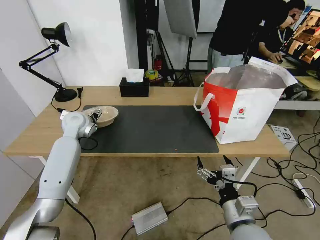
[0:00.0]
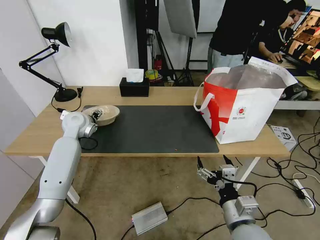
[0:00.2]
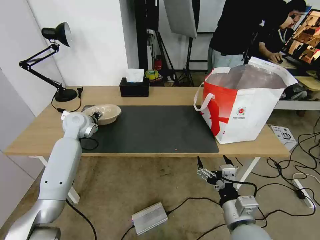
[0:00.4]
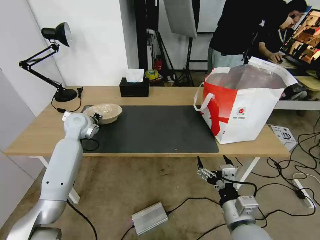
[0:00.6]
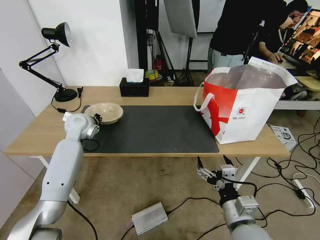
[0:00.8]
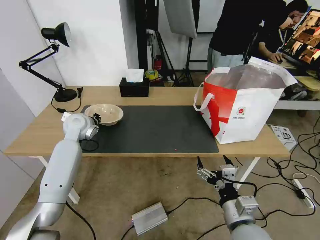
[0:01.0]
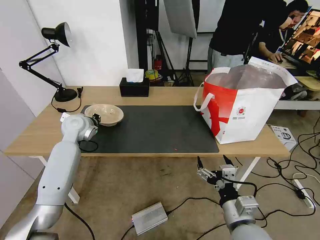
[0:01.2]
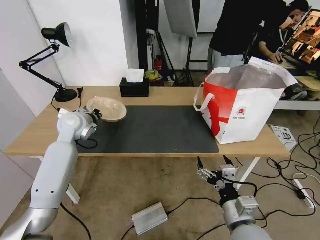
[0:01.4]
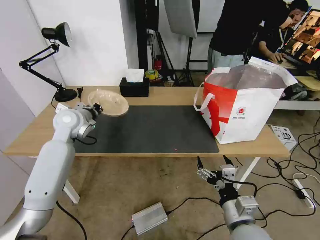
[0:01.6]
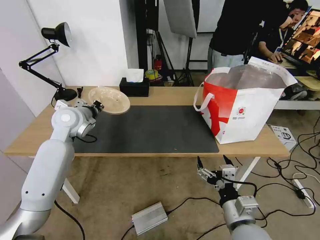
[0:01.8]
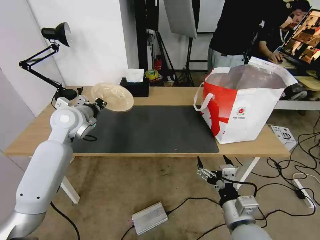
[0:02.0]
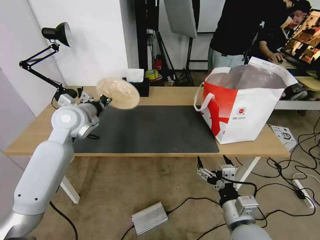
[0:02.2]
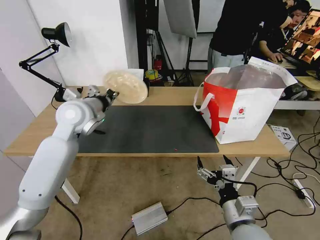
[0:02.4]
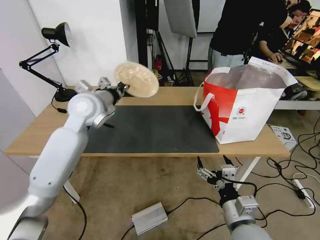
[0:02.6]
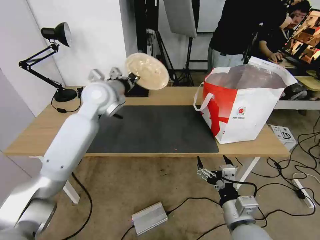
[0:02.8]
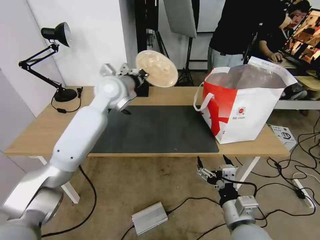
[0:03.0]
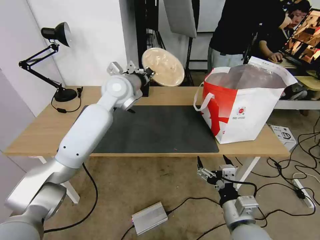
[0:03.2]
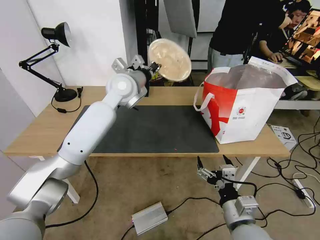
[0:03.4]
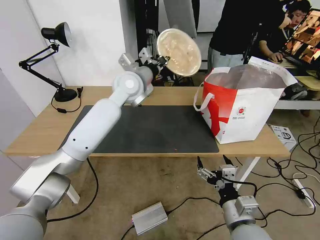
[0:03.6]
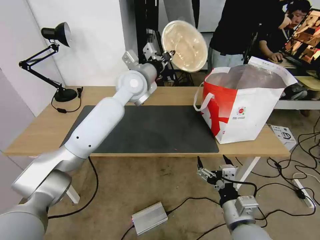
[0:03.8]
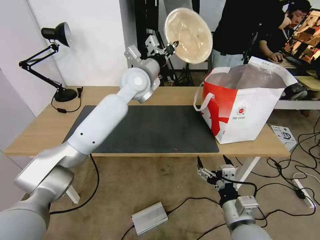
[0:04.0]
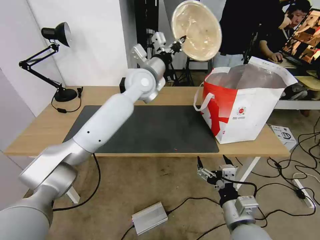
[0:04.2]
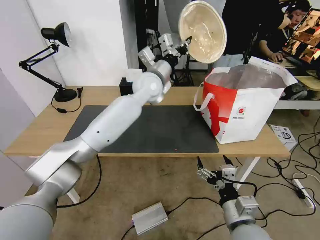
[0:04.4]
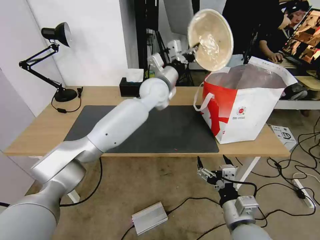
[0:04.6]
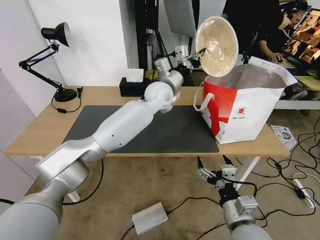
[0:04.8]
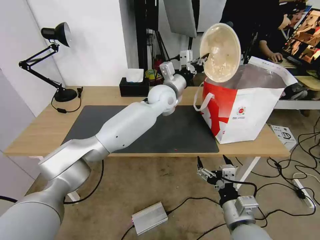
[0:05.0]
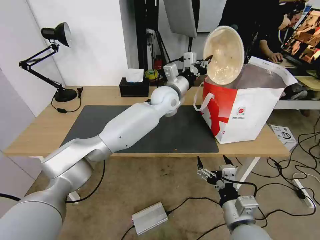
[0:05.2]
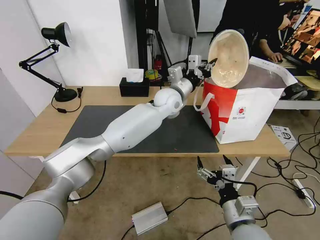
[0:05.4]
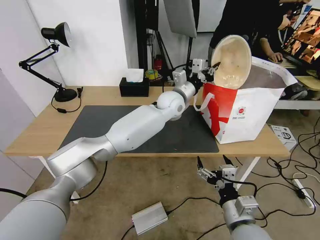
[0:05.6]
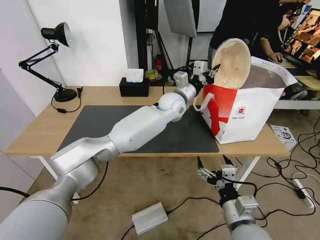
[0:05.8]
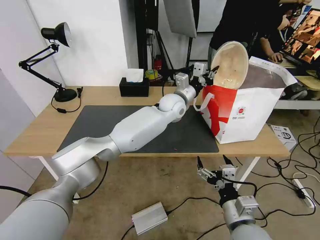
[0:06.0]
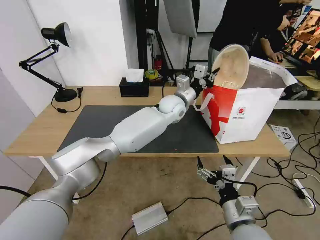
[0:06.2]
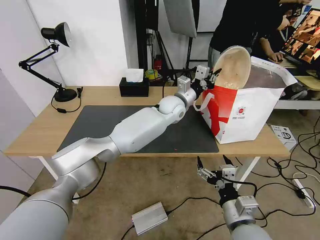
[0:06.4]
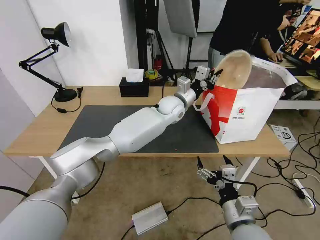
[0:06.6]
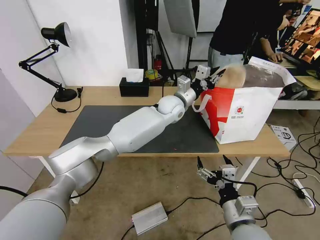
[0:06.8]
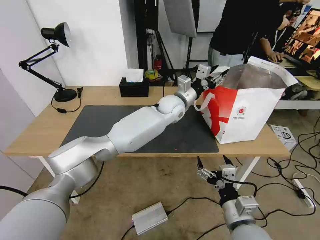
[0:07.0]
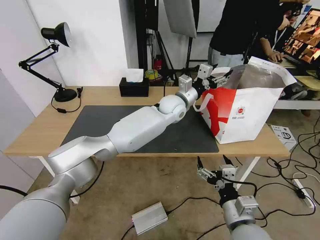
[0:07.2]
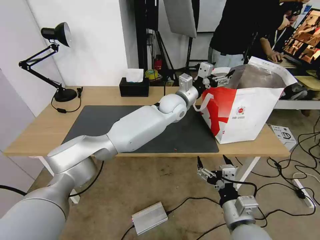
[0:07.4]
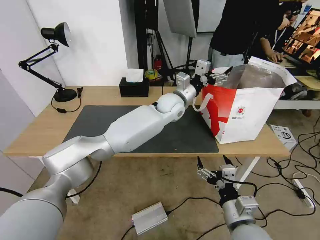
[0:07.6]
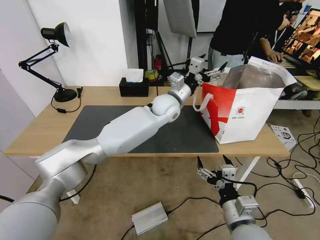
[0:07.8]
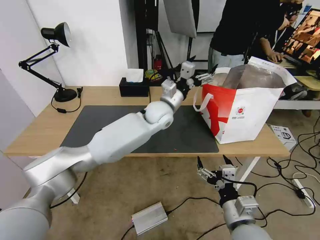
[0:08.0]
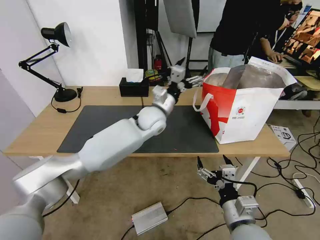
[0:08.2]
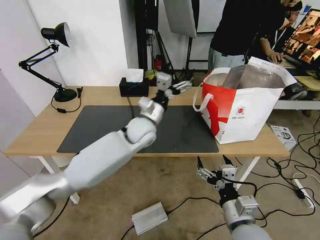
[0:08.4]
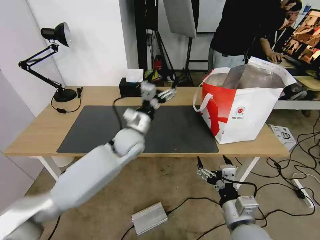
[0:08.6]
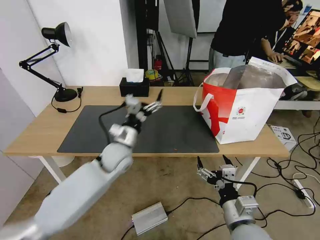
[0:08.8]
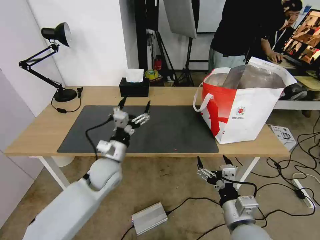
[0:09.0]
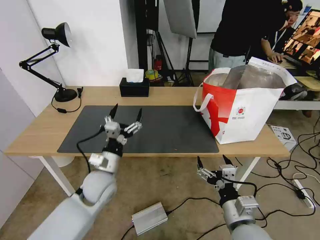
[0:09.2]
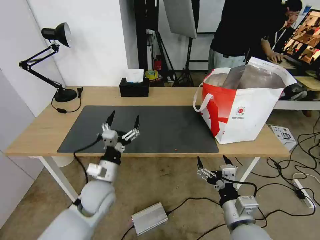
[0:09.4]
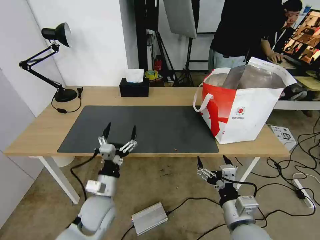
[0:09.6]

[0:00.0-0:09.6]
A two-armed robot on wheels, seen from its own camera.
Task of the whole recording: Pick up the trash from the table and place it into the takeout bag.
0:00.0 to 0:01.6: The left gripper moves some 5 cm, and closes.
0:01.6 to 0:03.2: The left gripper travels to the right and upward by roughly 20 cm.
0:03.2 to 0:04.8: The left gripper shifts about 15 cm to the right.
0:04.8 to 0:06.4: The left gripper travels downward by some 5 cm.
0:06.4 to 0:08.0: The left gripper moves to the left, approximately 5 cm, and opens its fingers.
0:08.0 to 0:09.6: The left gripper heads backward, to the left and downward, covering approximately 35 cm.

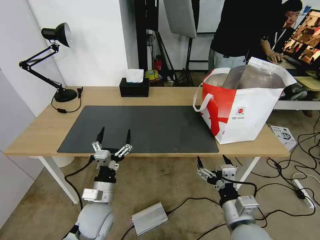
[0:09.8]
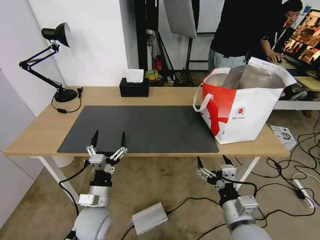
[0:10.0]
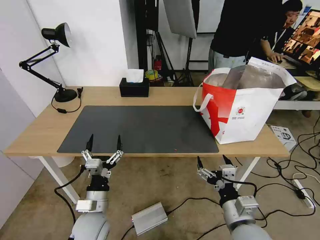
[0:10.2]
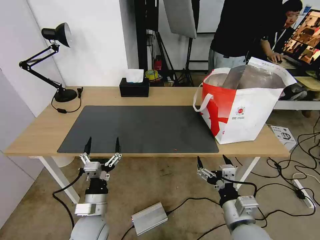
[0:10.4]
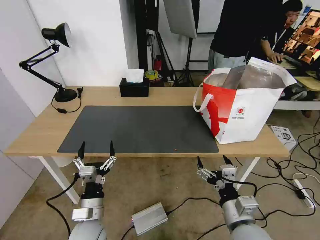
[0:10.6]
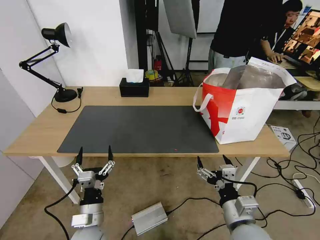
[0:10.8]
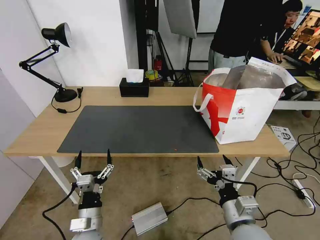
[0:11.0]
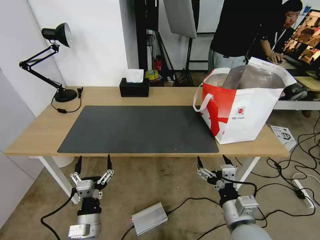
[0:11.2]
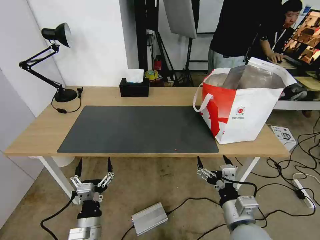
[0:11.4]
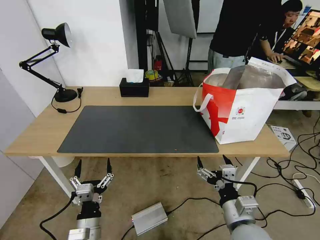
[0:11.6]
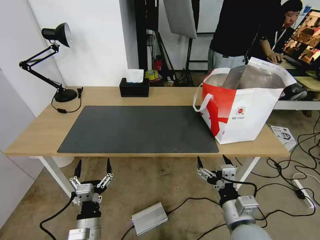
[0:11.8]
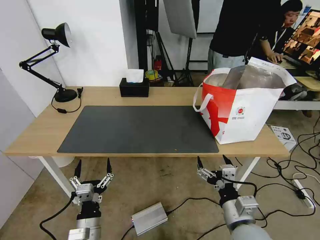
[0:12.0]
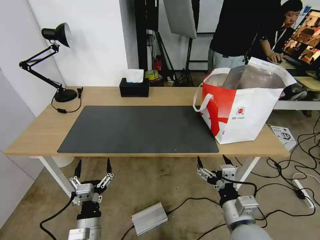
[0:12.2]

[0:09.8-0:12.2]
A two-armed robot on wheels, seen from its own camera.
Task of the whole recording: Pick up the trash from the table and place it into the takeout bag.
0:09.8 to 0:11.0: The left gripper heads backward, covering about 5 cm.
0:11.0 to 0:12.2: The grippers stay close to where they were, moving slightly.

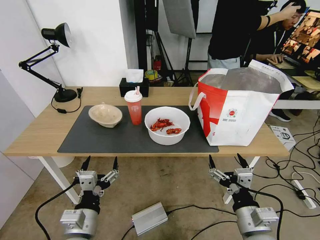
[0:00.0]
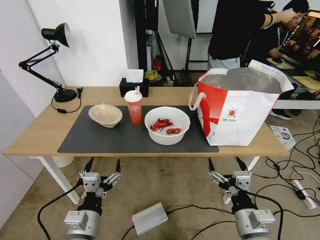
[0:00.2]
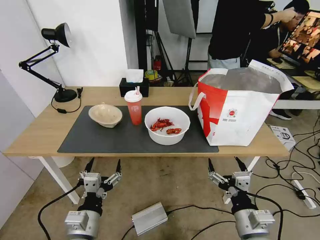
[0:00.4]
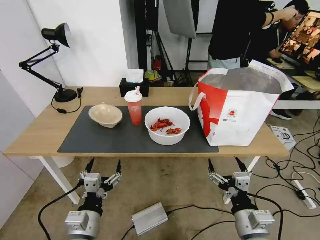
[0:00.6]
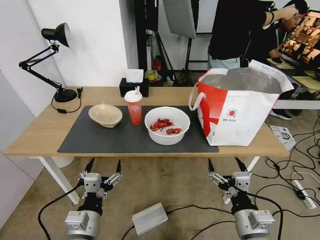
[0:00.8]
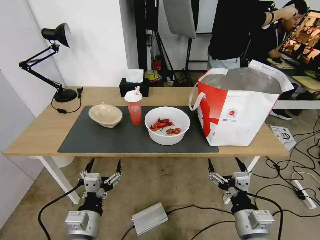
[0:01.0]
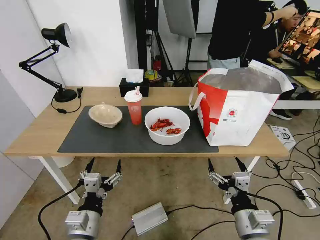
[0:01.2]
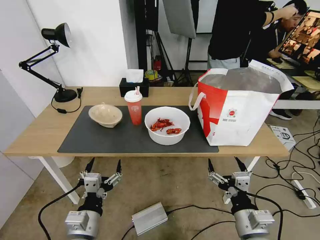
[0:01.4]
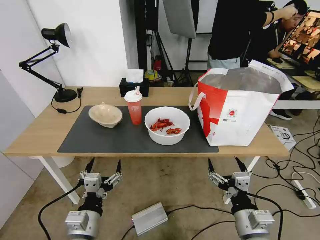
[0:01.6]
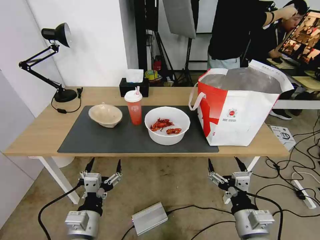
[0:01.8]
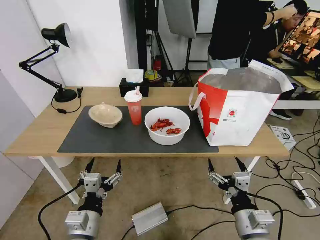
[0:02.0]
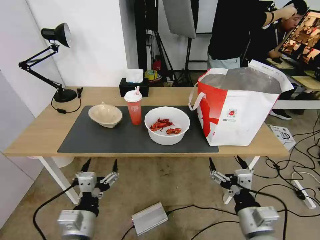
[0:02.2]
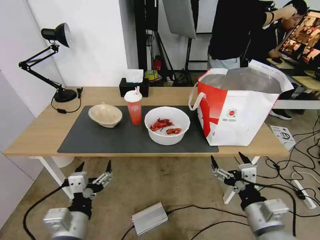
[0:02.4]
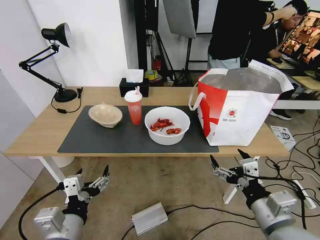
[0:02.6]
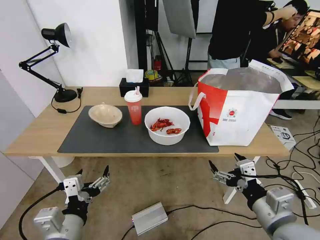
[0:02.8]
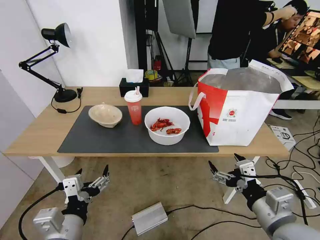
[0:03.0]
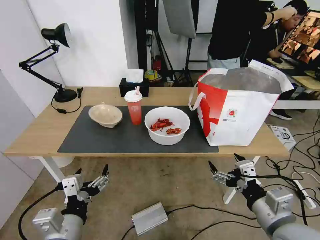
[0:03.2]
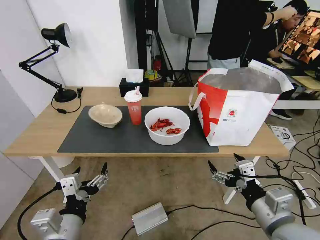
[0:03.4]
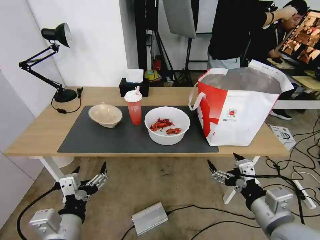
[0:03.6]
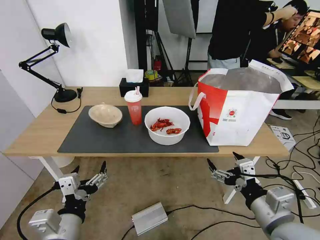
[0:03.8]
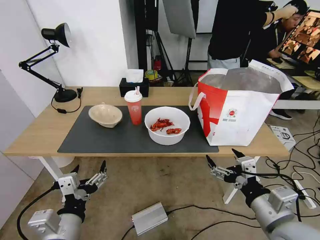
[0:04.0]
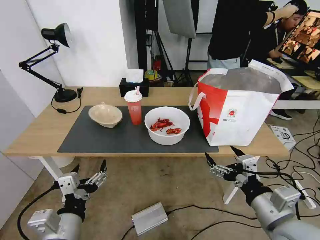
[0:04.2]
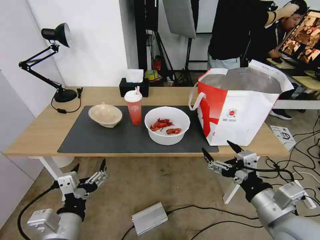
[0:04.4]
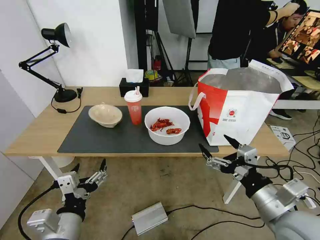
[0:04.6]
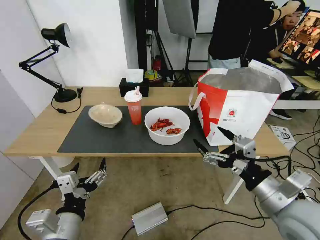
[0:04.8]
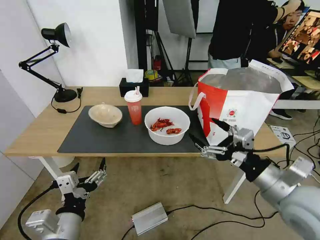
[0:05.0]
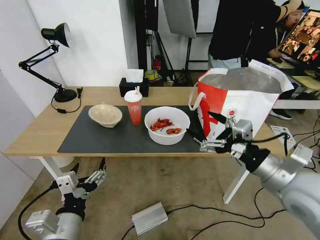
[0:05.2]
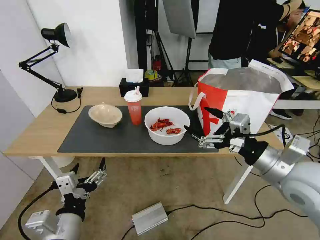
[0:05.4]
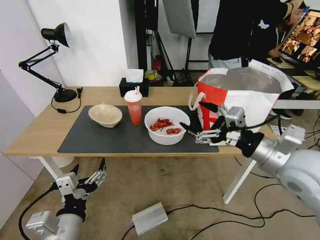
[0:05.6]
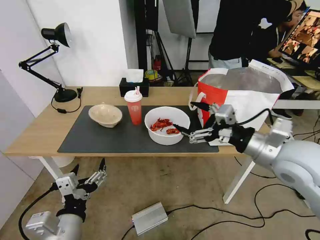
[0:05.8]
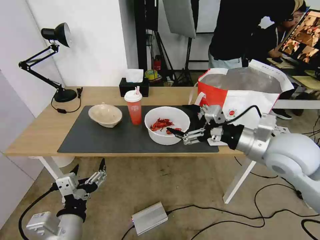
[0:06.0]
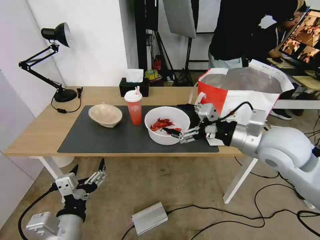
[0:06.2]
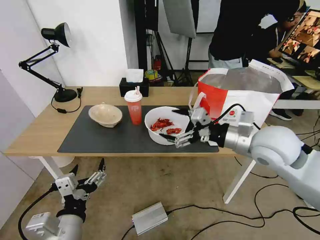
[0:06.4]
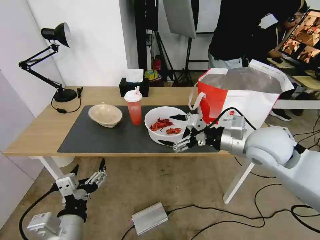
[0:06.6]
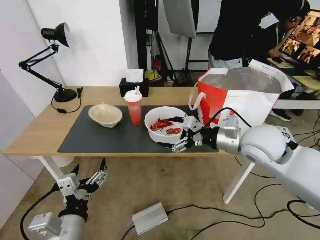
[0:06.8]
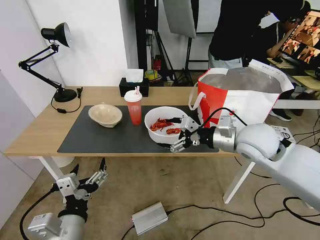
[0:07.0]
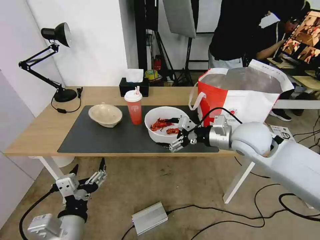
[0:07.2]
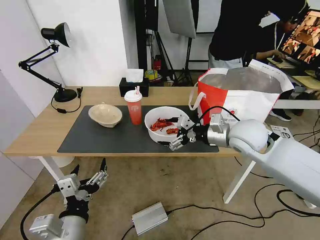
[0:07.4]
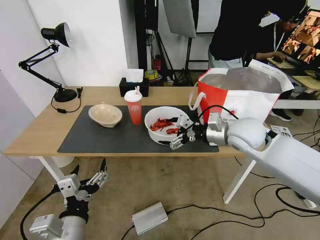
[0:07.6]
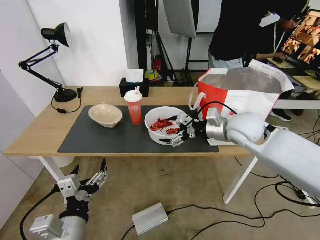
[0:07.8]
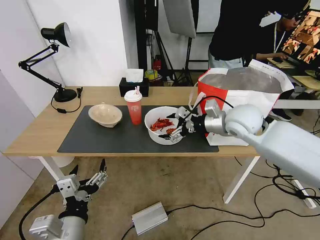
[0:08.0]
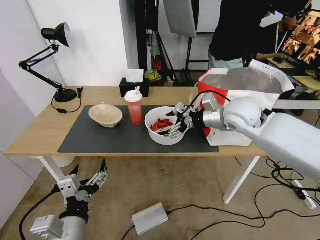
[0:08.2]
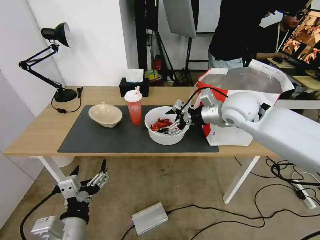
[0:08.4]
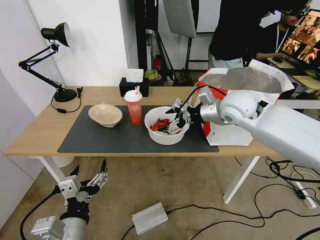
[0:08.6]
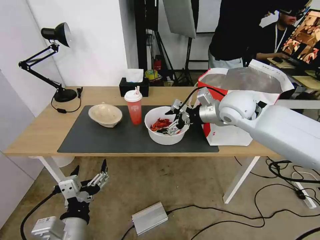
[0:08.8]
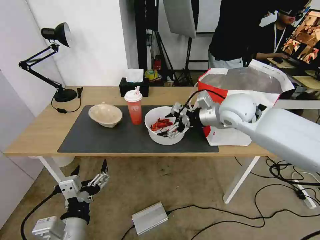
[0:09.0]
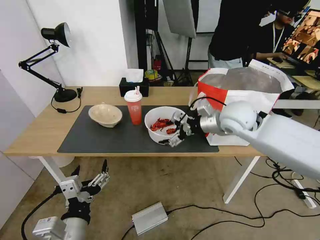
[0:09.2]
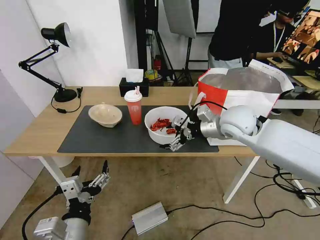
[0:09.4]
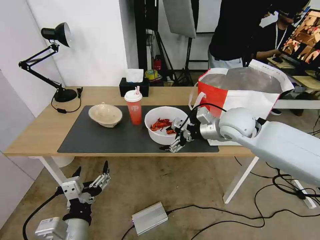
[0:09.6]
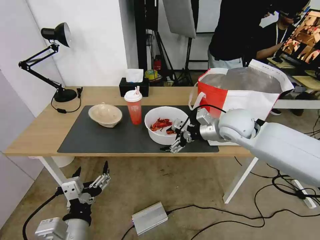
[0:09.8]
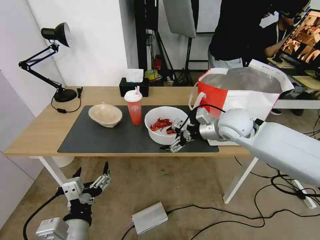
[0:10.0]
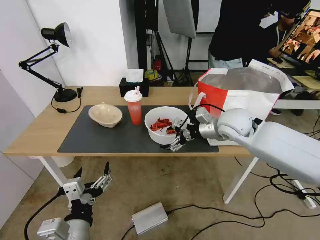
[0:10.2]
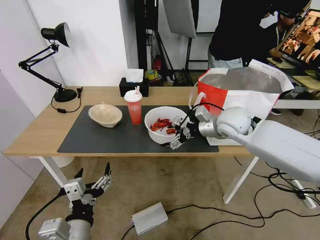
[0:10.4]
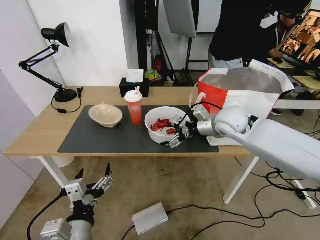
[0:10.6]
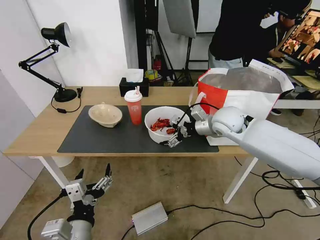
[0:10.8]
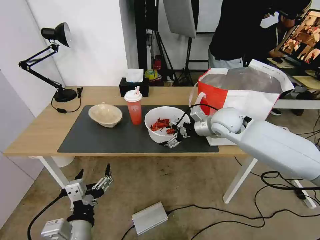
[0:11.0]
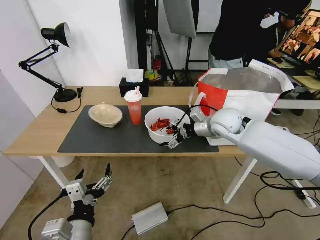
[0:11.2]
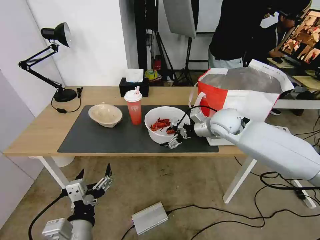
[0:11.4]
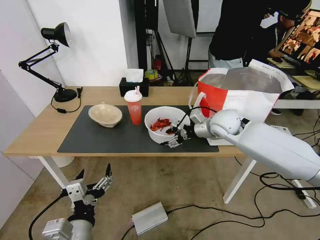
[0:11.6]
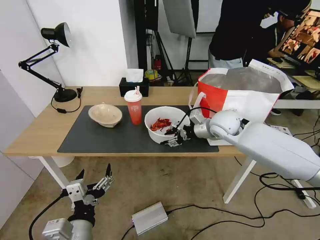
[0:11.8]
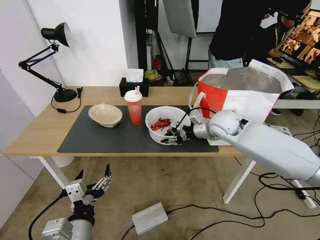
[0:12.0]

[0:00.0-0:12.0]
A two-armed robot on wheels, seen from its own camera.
Task of the whole recording: Pick up the trash from the table and place it into the takeout bag.
0:01.6 to 0:03.0: Both grippers move upward, some 10 cm.
0:03.0 to 0:04.4: The grippers move only a little.
0:04.4 to 0:06.0: The right gripper is displaced forward and upward by approximately 15 cm.
0:06.0 to 0:07.6: The right gripper heads forward, covering some 10 cm.
0:07.6 to 0:09.0: The right gripper heads forward, covering about 5 cm.
0:09.0 to 0:10.4: The grippers move only a little.
0:10.4 to 0:12.0: The right gripper closes its fingers.
